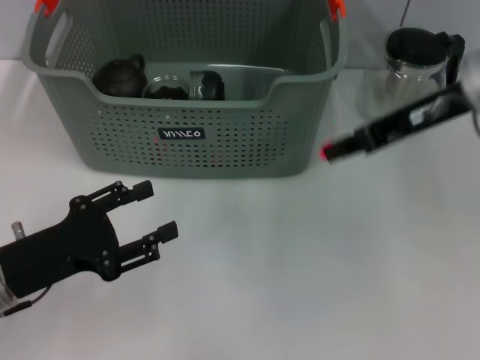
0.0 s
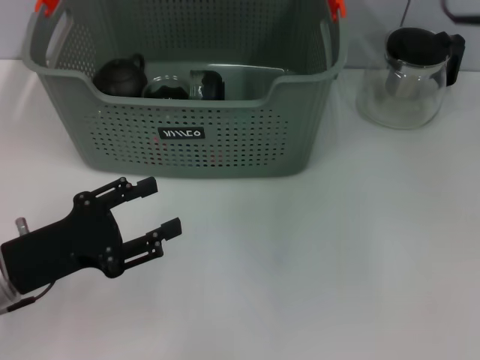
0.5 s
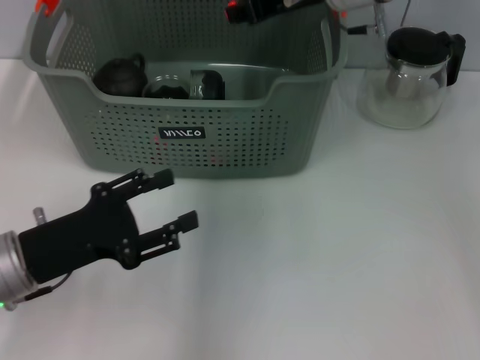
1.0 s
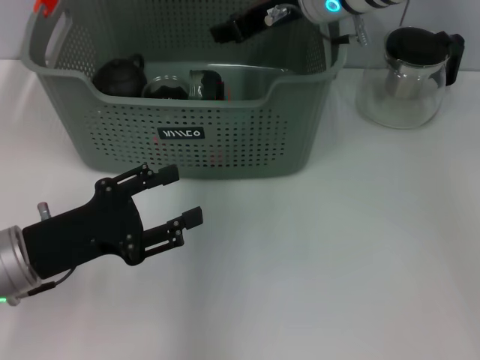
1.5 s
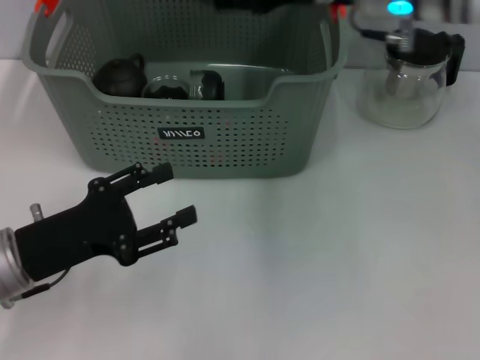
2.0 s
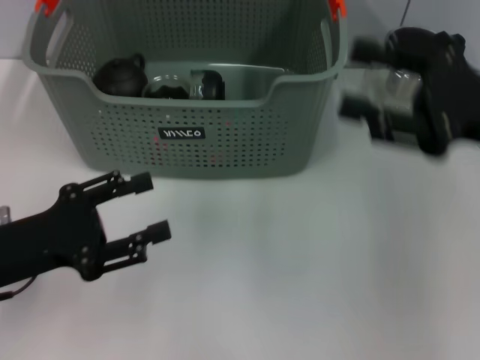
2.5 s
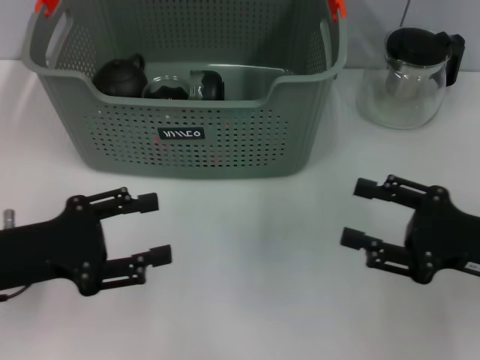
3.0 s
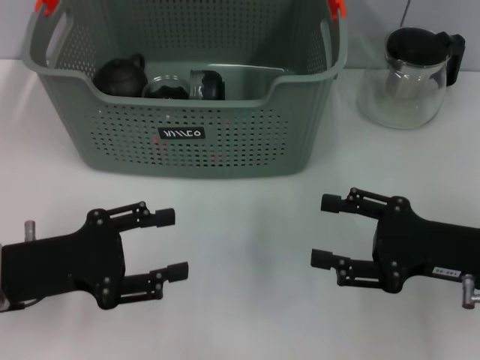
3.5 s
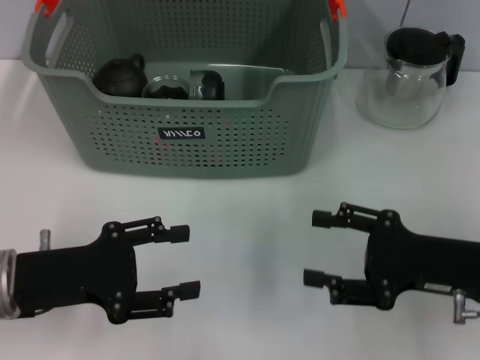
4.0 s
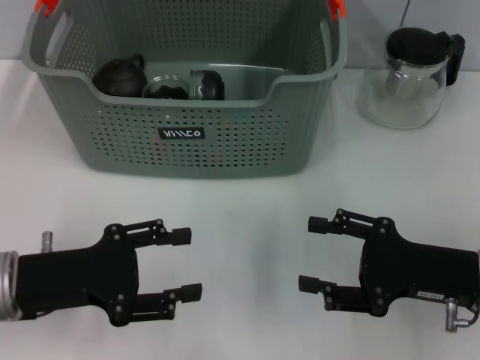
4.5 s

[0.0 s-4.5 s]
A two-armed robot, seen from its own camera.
Task of the whole recording: pick up the teacup on the table and place it into the storage bin, pick up the block on the table and place it into the storage bin.
Step, 0.0 to 2.0 s: Place the orange block in the storage box with right gripper.
0.0 to 2.0 s: The right gripper goes some 10 cm forward and to the left, and opens its fingers.
2.0 to 4.5 s: The right gripper is displaced downward, backward and to the right by approximately 25 cm.
